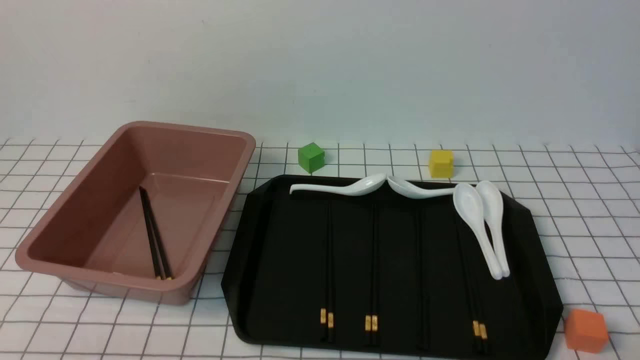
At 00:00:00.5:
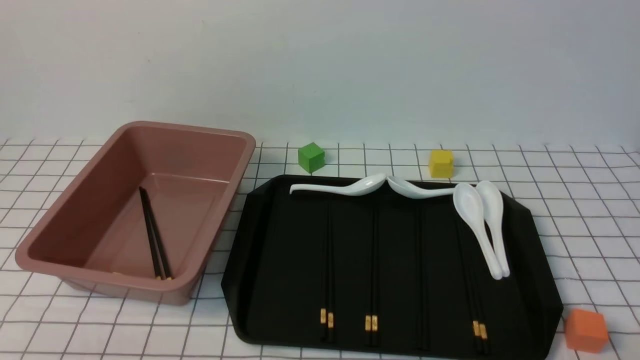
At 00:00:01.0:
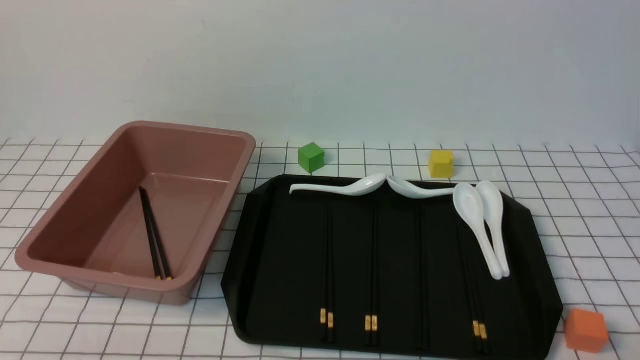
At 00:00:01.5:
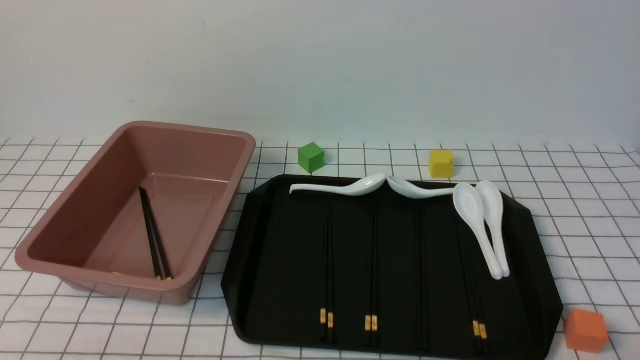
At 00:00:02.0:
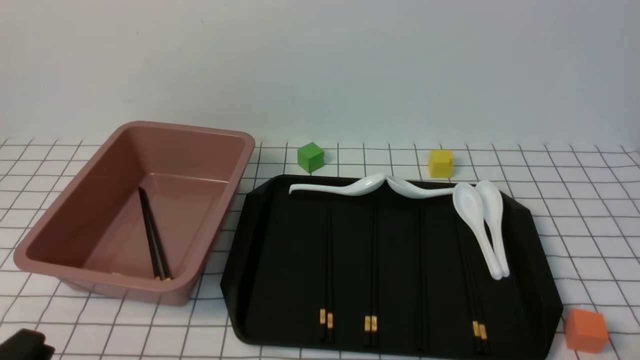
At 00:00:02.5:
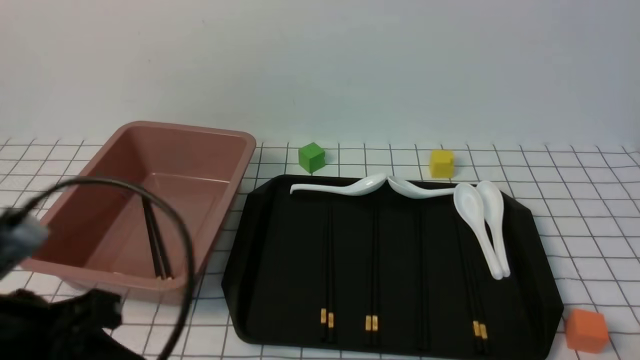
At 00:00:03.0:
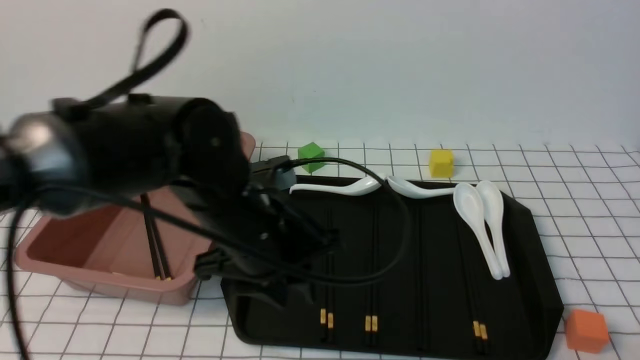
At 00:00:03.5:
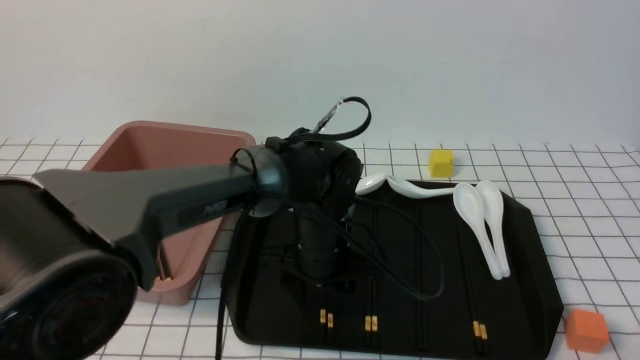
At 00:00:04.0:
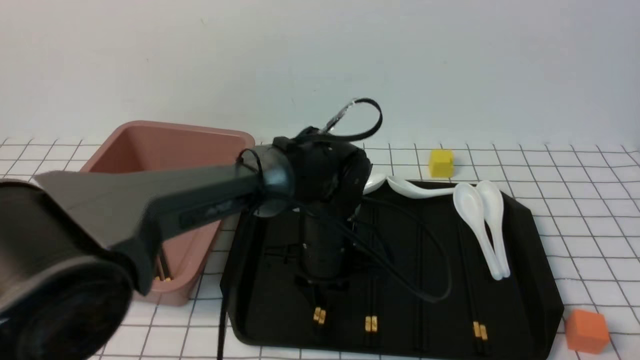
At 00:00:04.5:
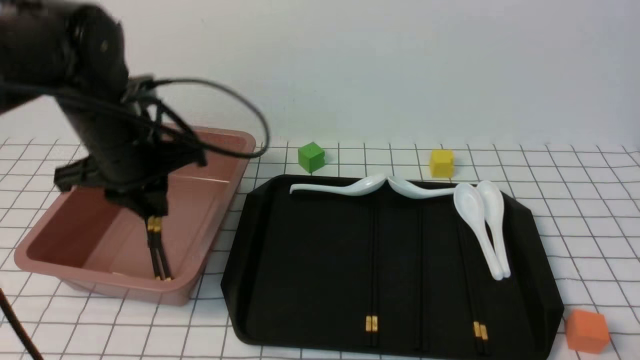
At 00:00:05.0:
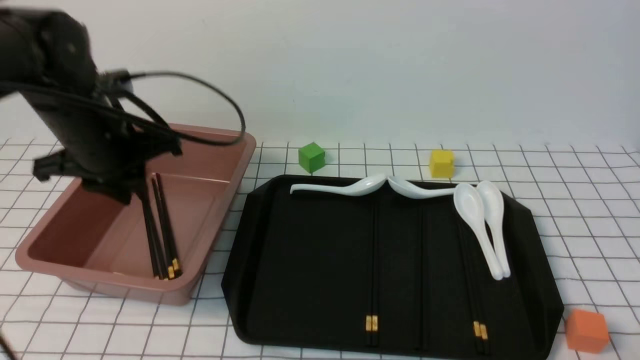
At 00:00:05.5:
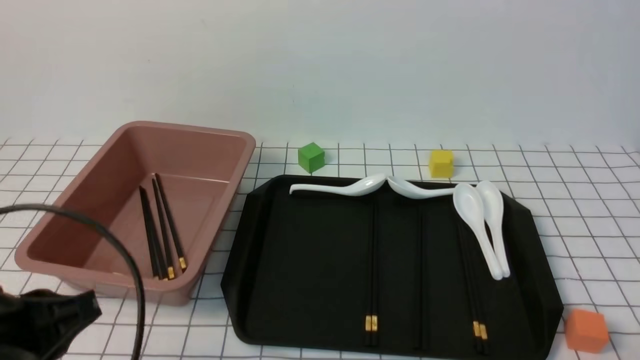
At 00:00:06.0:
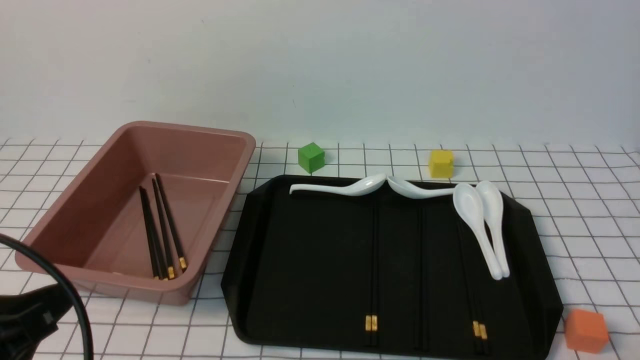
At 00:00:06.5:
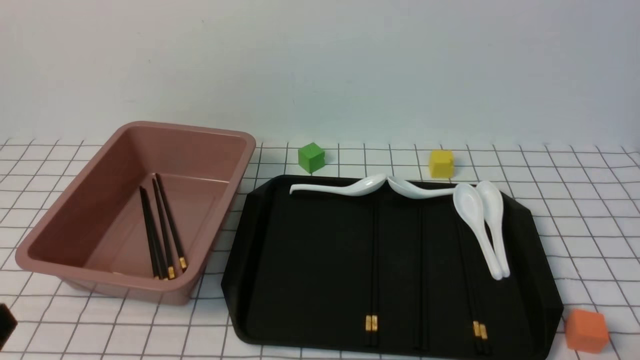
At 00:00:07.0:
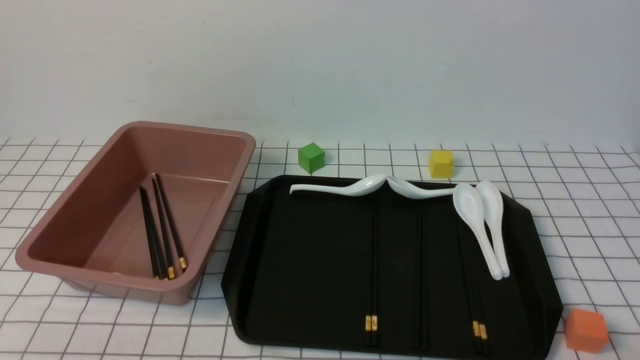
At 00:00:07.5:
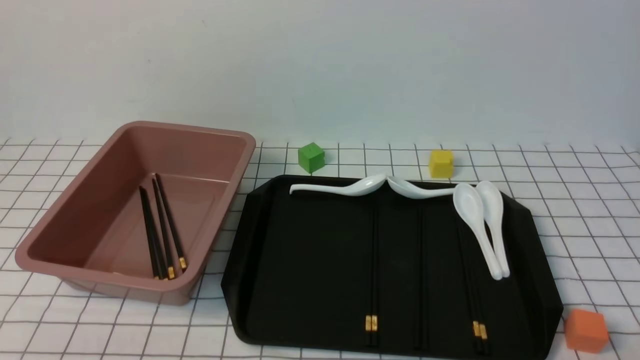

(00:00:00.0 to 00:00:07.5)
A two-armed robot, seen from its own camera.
Step, 00:00:00.0 - 00:00:02.5: use the left arm to grab a pair of chopsticks.
Step, 00:00:03.0 - 00:00:05.0: use the left arm to put the chopsticks into the lunch box.
00:00:02.0 - 00:00:04.0: The left gripper shifts approximately 40 cm forward and to the right, and opens, then closes once more.
00:00:04.0 - 00:00:05.5: The left gripper shifts some 30 cm to the left, backward and upward, and closes.
00:00:05.5 - 00:00:07.5: The left gripper moves backward and downward, approximately 15 cm.
